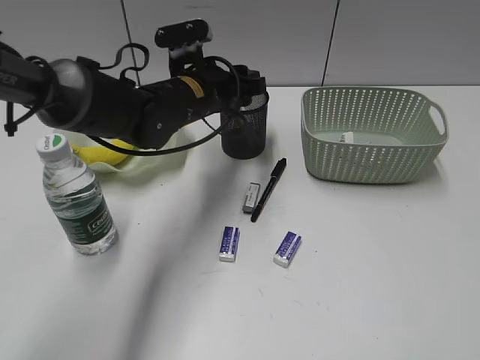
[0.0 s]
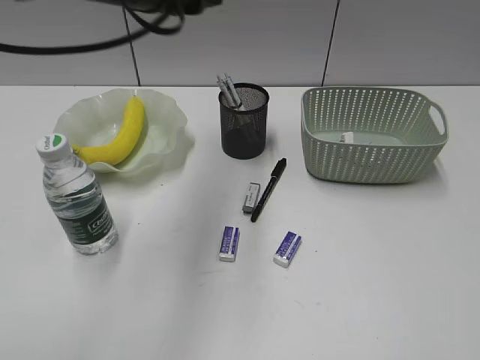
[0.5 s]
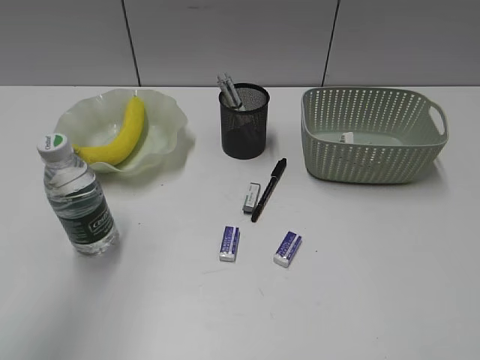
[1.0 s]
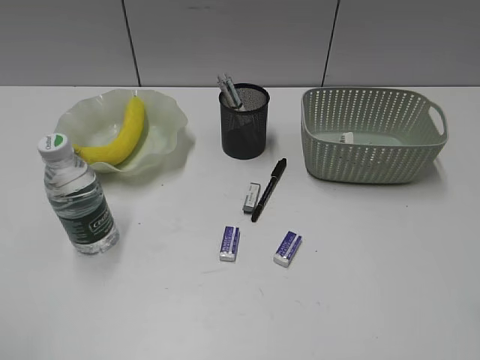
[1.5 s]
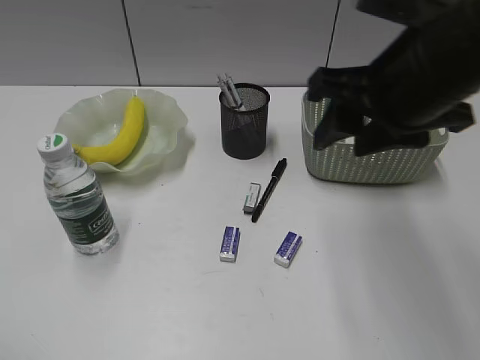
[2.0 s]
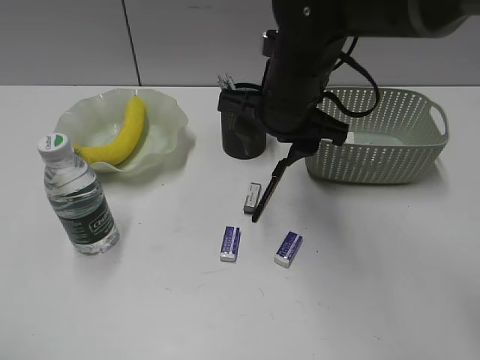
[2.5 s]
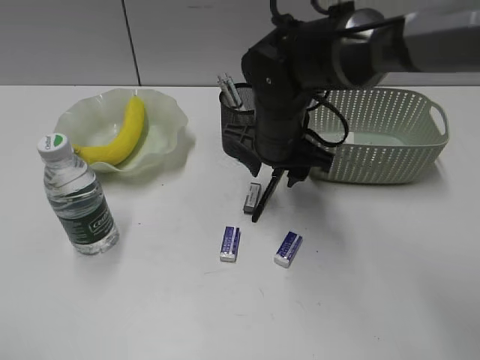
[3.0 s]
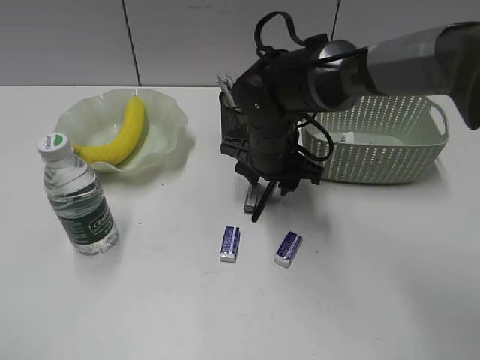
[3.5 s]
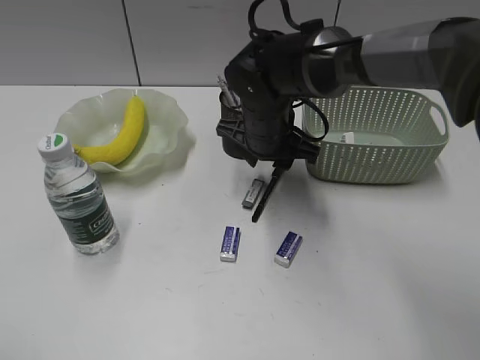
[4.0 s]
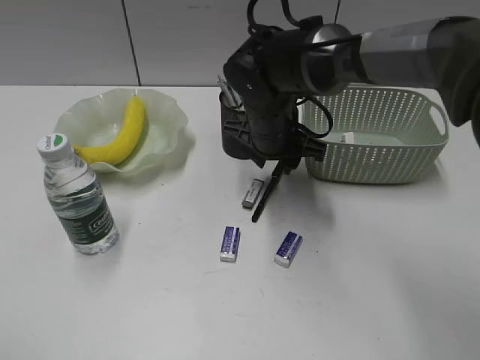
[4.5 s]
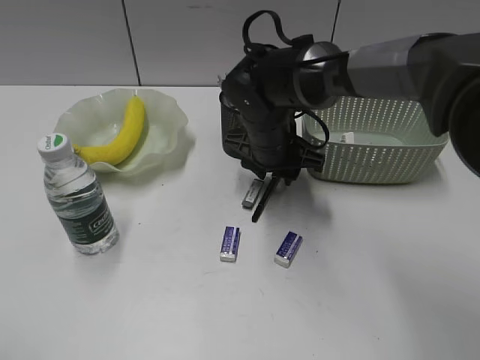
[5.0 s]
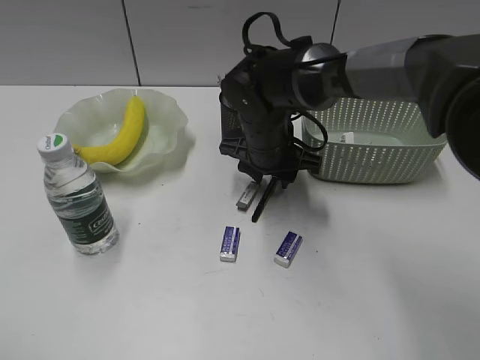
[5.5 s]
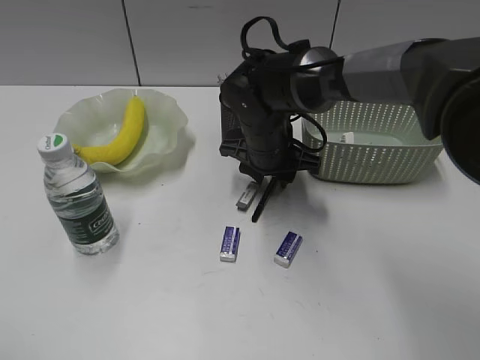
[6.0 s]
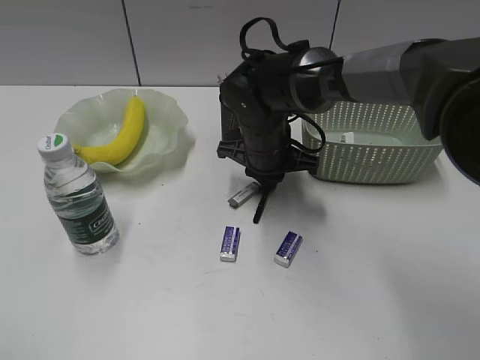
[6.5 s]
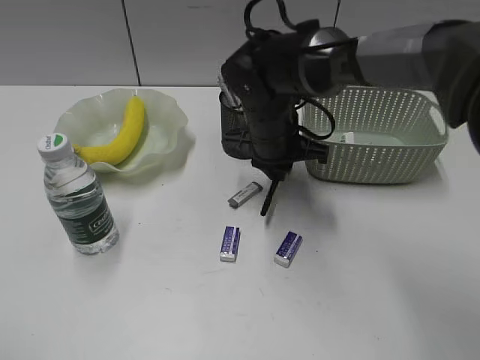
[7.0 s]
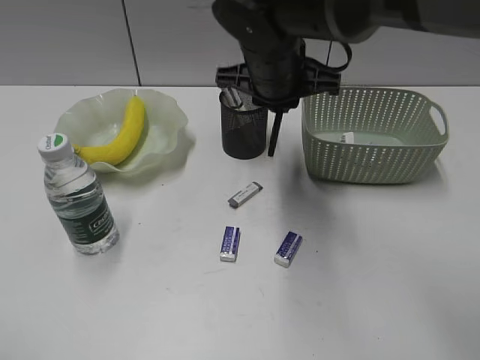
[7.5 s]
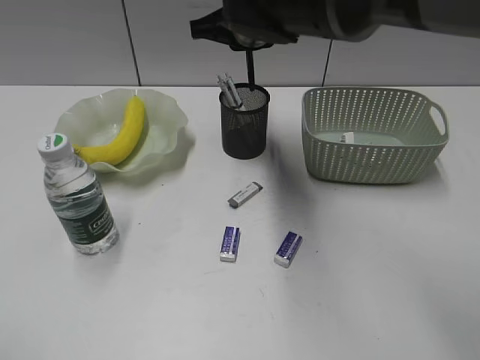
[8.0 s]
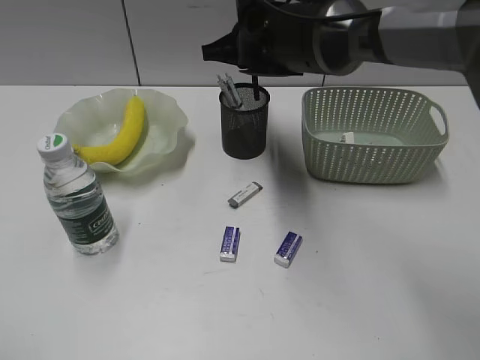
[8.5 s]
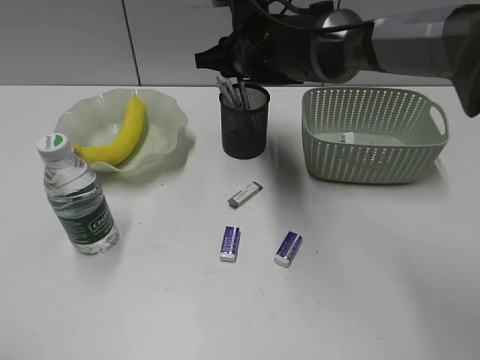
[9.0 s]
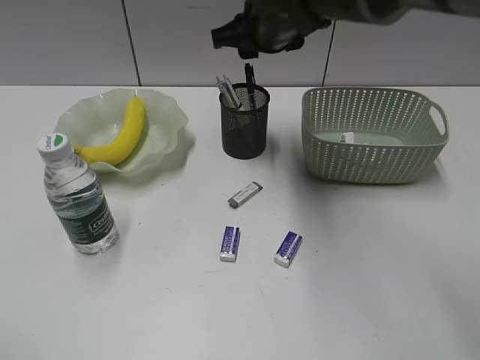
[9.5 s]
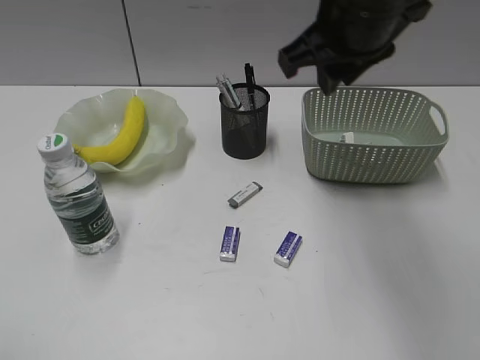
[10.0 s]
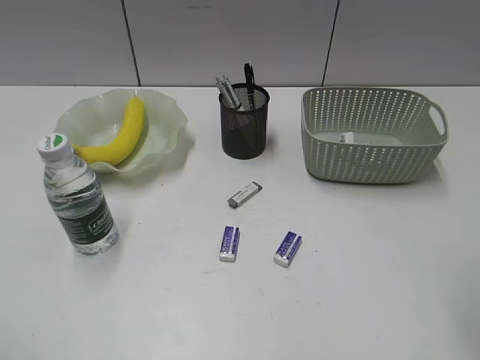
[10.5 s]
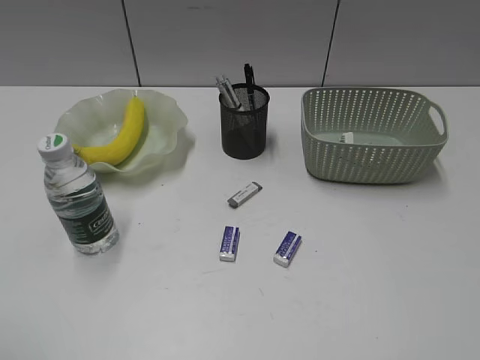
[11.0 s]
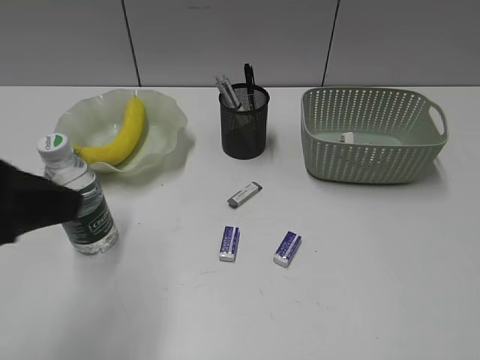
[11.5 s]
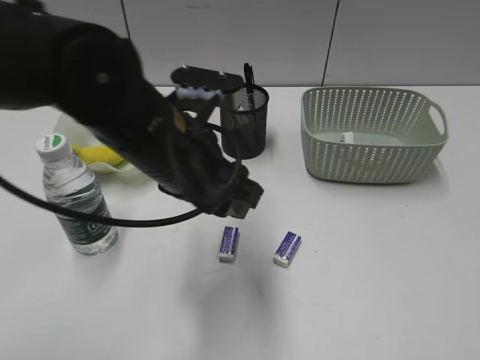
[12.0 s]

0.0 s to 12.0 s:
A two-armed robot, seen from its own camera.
Step, 0.5 to 6.5 s: Grasp the black pen with right gripper.
Step, 7.0 to 9.0 s: Place the black pen in pen holder with right gripper.
0.0 to 2.0 s: The right gripper goes roughly 30 cm forward and to the left. The left gripper is displaced backward and to the left by approximately 50 cm.
2.0 to 4.0 s: The right gripper is displaced downward, forward and to the left by about 25 cm.
4.0 to 6.0 s: The grippers stay close to where they were, moving slightly.
6.0 to 8.0 s: The right gripper travels upward by some 15 cm, and closes its fingers.
8.0 to 10.0 s: The right gripper is displaced backward, to the right and upward by roughly 15 cm.
10.0 to 12.0 s: The right gripper travels backward and to the right by approximately 40 cm. Meanwhile the left gripper goes approximately 35 cm to the right and forward.

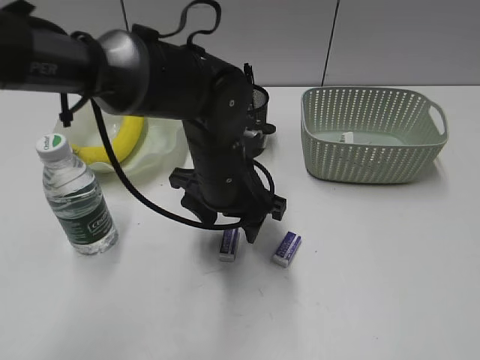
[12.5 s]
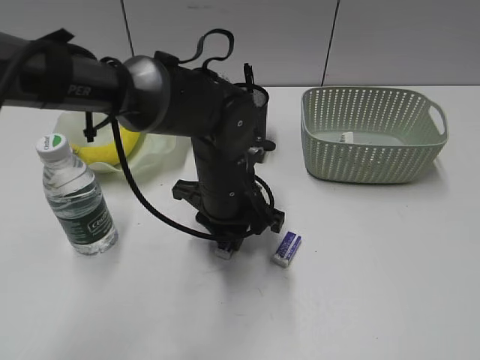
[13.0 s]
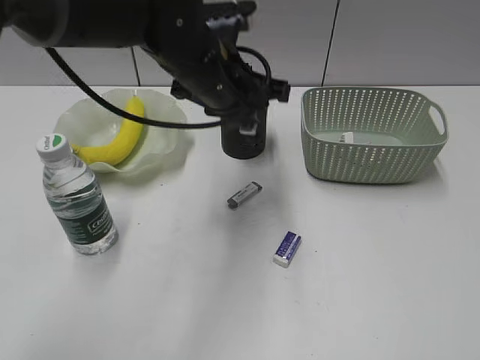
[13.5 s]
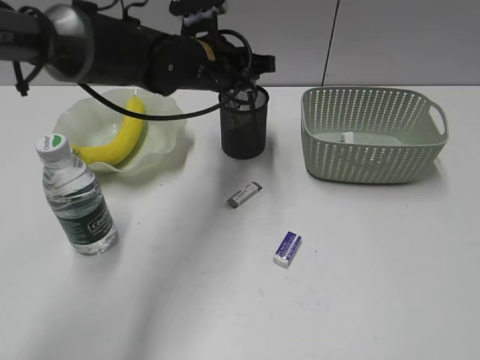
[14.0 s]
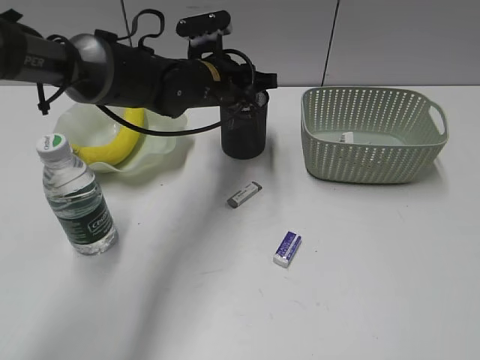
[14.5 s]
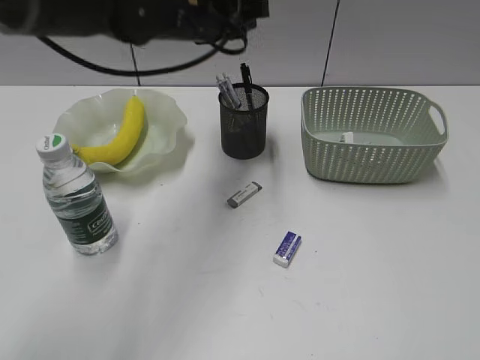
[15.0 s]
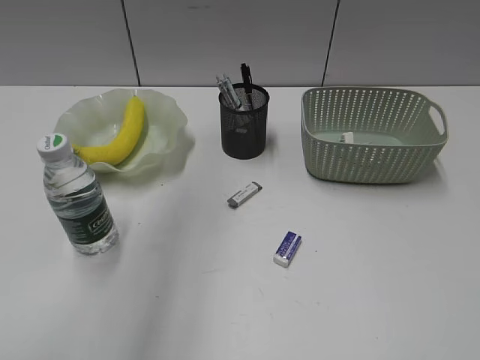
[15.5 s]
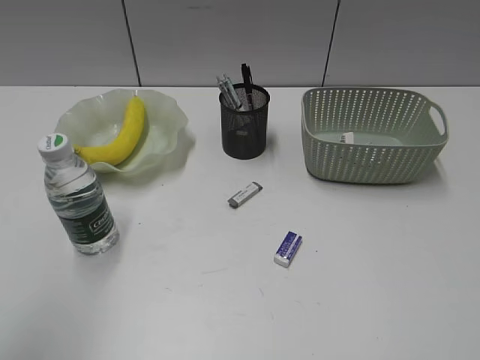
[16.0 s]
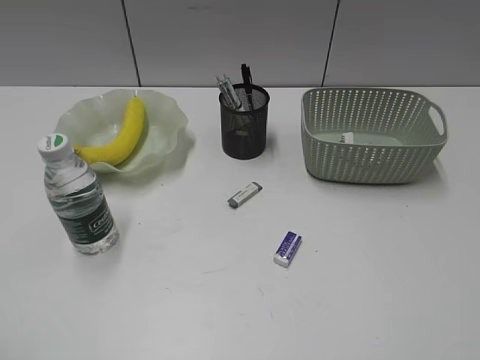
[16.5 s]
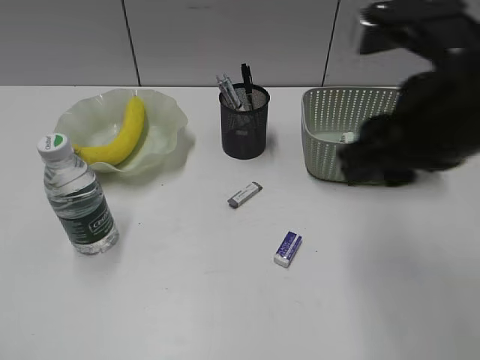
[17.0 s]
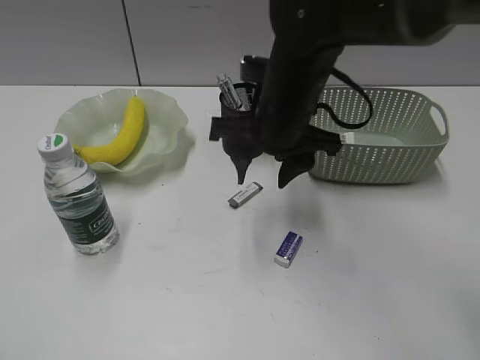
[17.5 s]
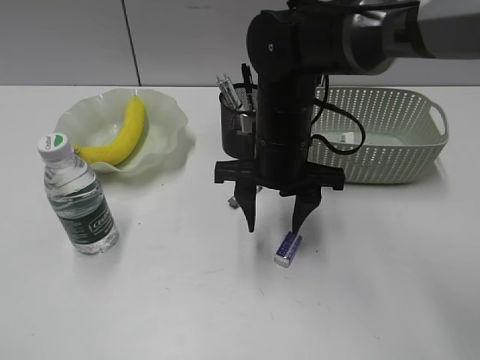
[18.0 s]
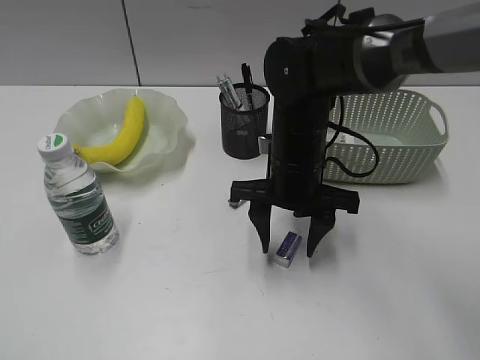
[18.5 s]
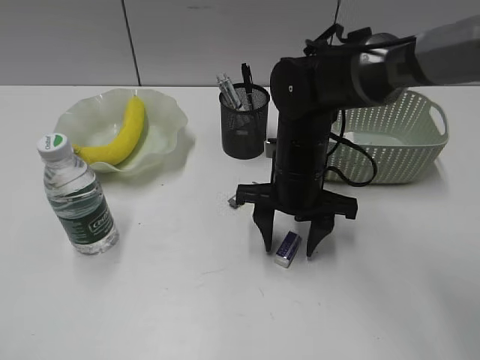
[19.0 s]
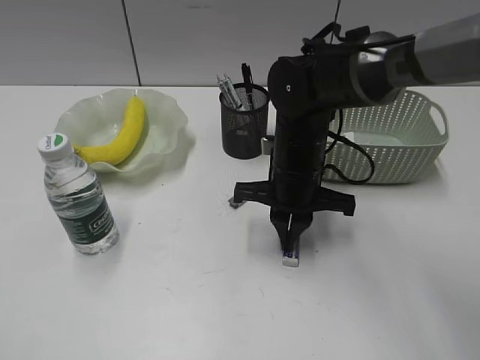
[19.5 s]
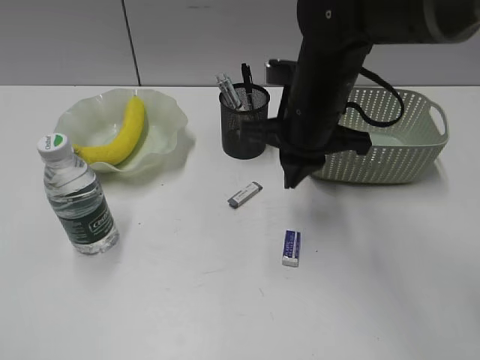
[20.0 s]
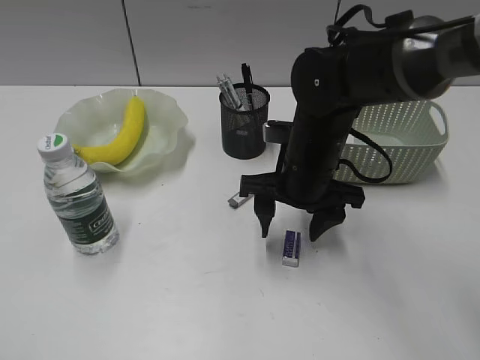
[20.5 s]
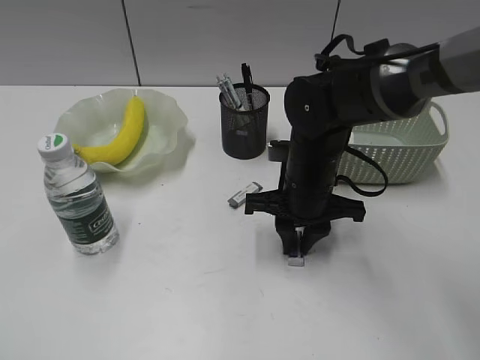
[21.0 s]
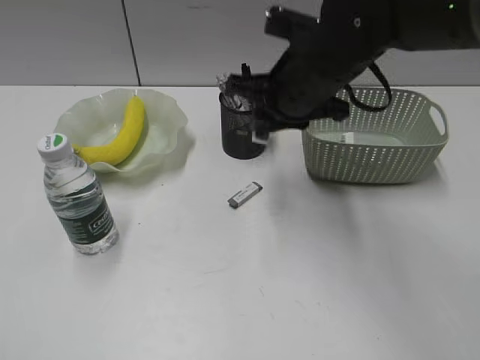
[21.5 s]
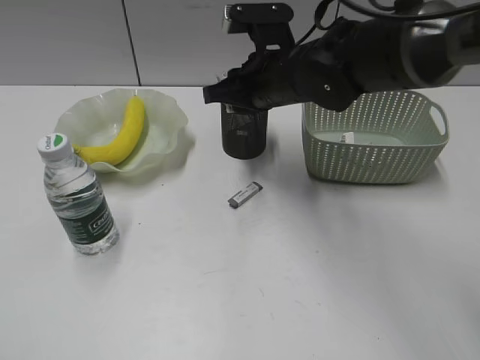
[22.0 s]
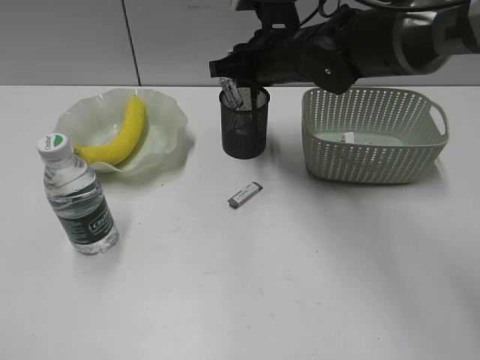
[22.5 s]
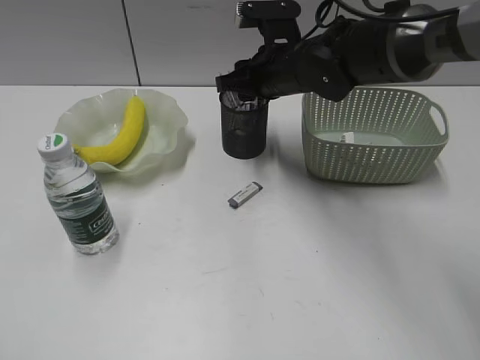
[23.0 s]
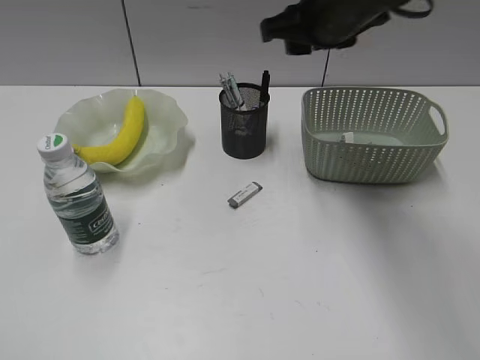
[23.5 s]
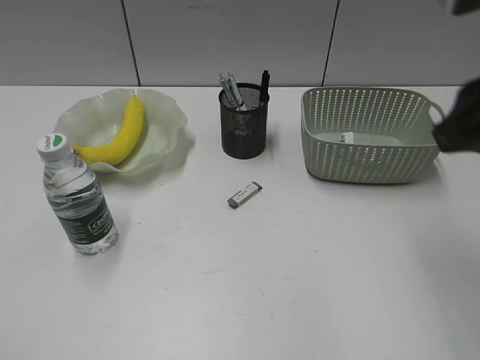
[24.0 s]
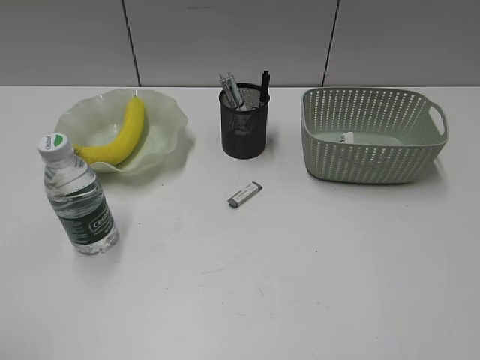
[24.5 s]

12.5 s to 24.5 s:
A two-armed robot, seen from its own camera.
Step, 13.0 to 14.5 s: Place the eraser in pen holder with left gripper.
Step, 15.0 to 21.0 s: Grasp the eraser with right gripper.
Step, 21.5 to 23.0 s: Place the eraser in pen holder with right gripper.
12.5 to 14.5 s: The left gripper heads forward, covering about 10 cm, and closes up.
14.5 to 16.5 s: The left gripper moves backward and to the left, some 50 cm.
16.5 to 18.5 s: The right gripper is displaced forward, to the left and downward by roughly 40 cm, and opens up.
18.5 to 20.5 s: The right gripper moves approximately 5 cm upward and comes back, and closes, then opens again.
20.5 to 22.5 s: The right gripper shifts about 10 cm forward and upward, and closes.
22.5 to 24.5 s: The right gripper shifts about 40 cm backward and to the right.

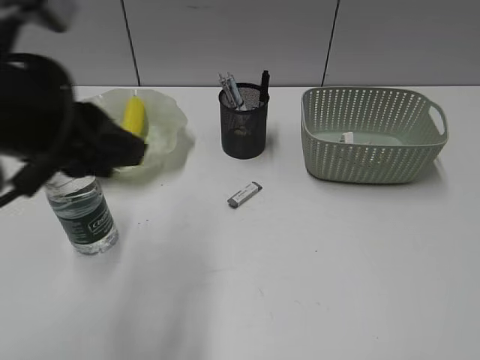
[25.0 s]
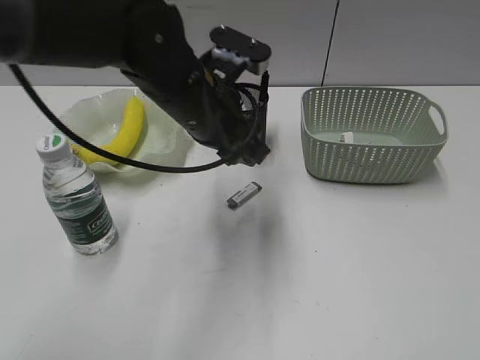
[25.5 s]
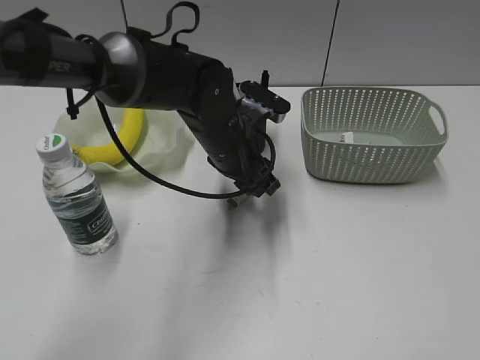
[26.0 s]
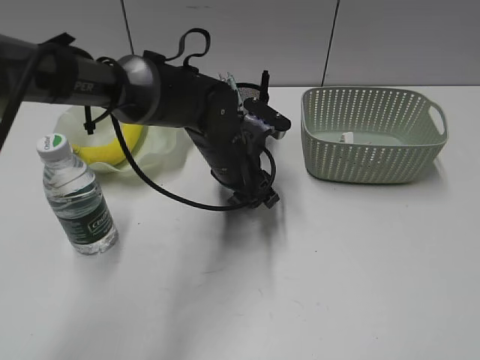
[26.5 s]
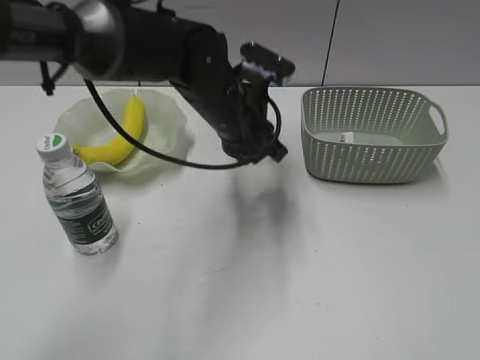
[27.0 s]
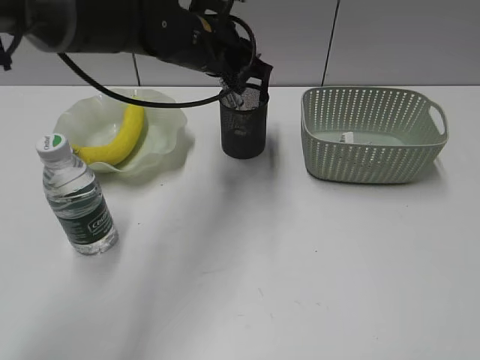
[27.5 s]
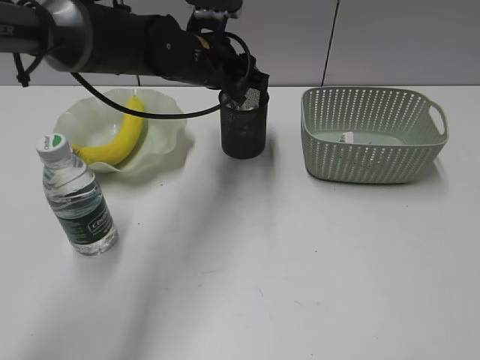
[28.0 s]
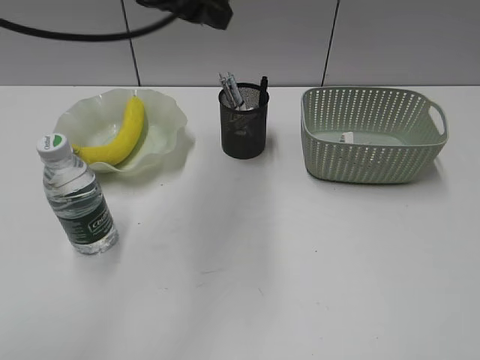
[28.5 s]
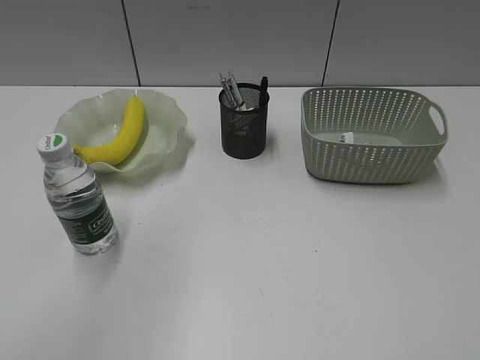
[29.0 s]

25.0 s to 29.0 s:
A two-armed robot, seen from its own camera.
Step, 27.0 to 28.0 s: Place the eraser in pen holder with left gripper.
25.0 to 27.0 s: The left gripper travels forward, to the right and downward by about 25 cm.
27.0 to 29.0 s: The left gripper moves upward, backward and to the left, approximately 40 cm, and opens its fingers.
